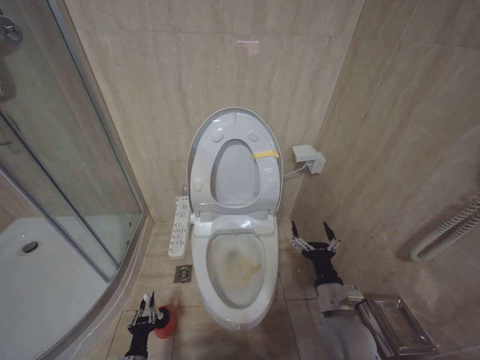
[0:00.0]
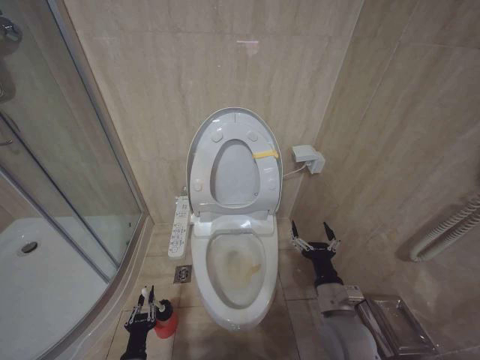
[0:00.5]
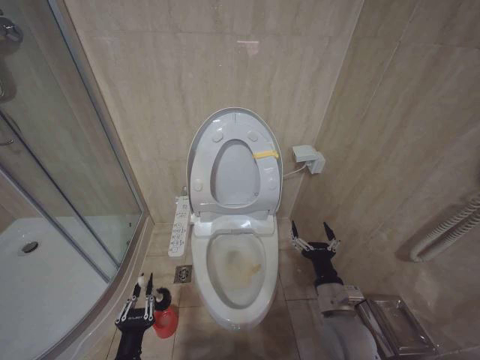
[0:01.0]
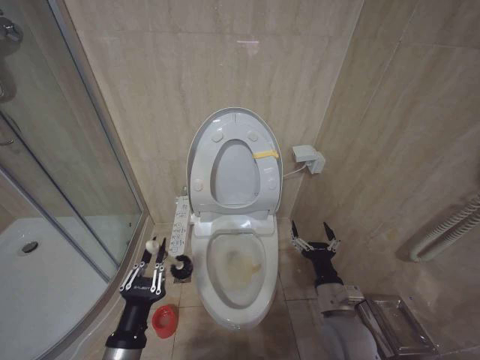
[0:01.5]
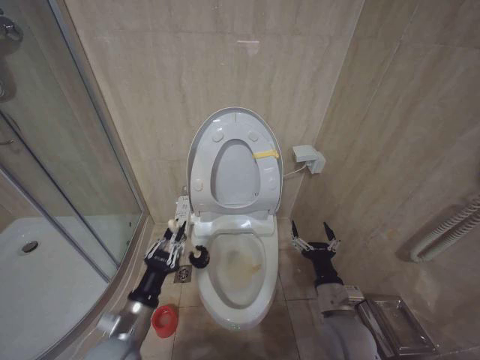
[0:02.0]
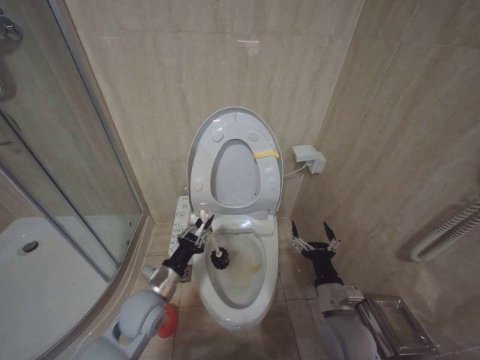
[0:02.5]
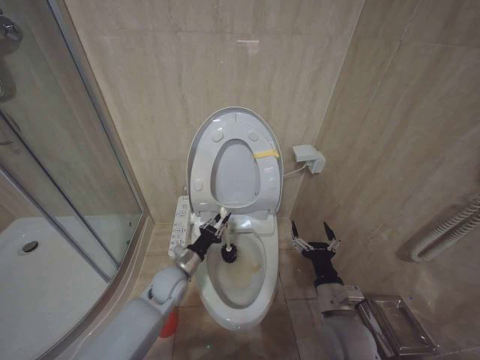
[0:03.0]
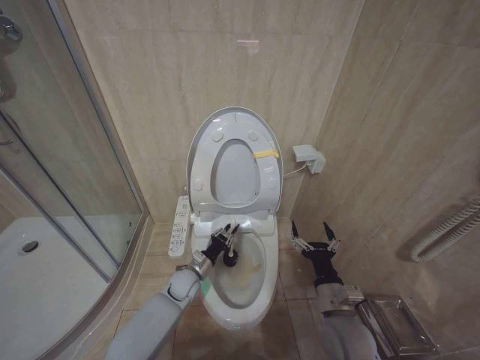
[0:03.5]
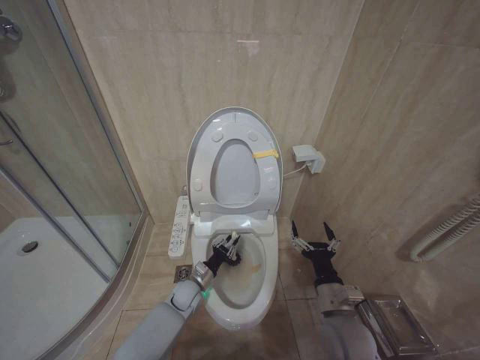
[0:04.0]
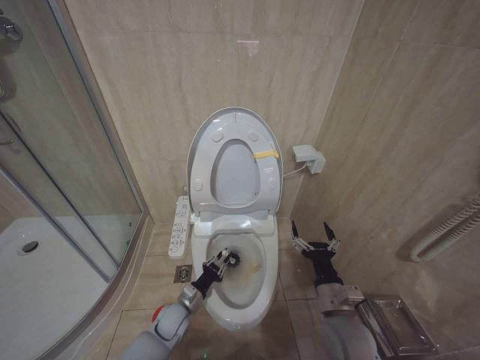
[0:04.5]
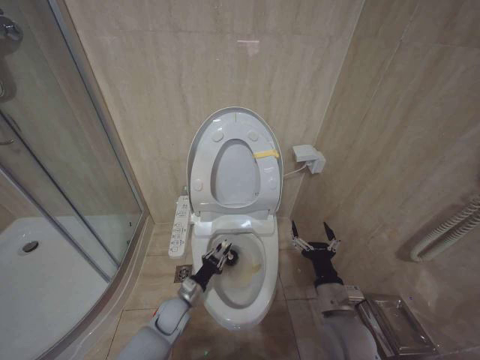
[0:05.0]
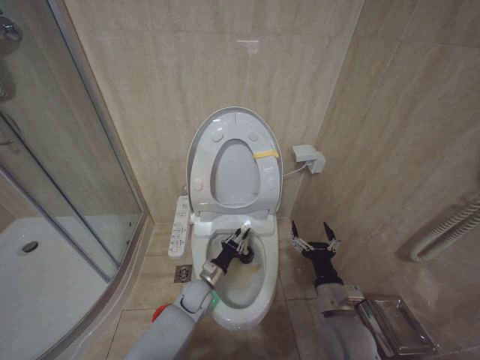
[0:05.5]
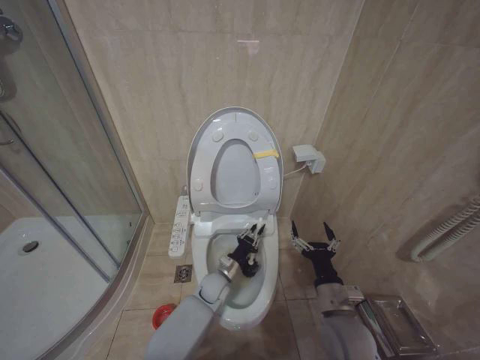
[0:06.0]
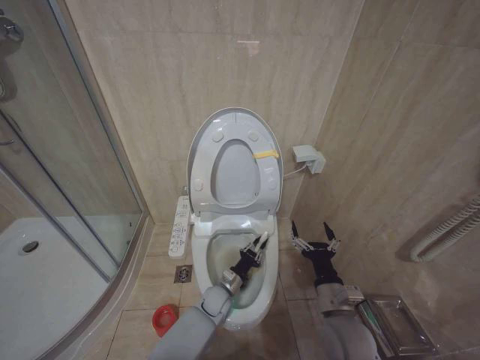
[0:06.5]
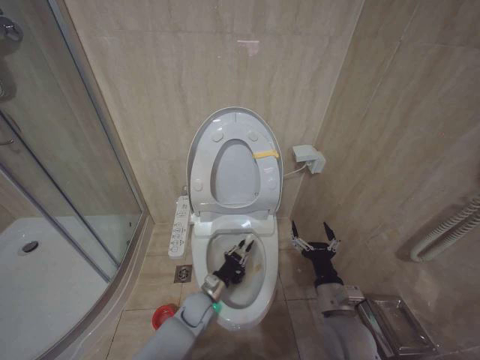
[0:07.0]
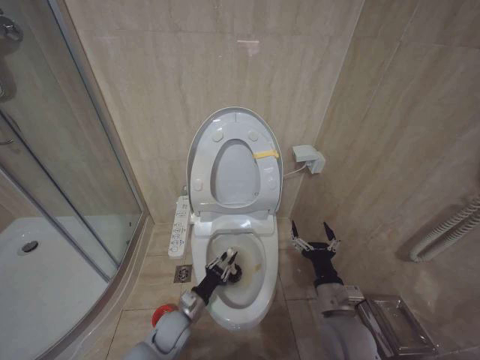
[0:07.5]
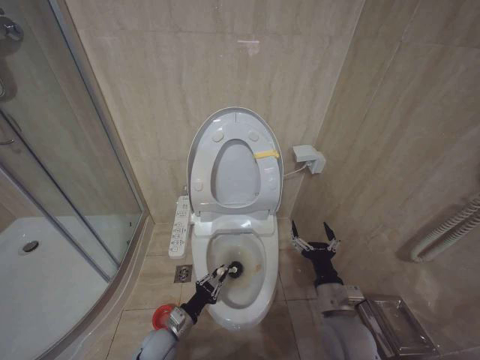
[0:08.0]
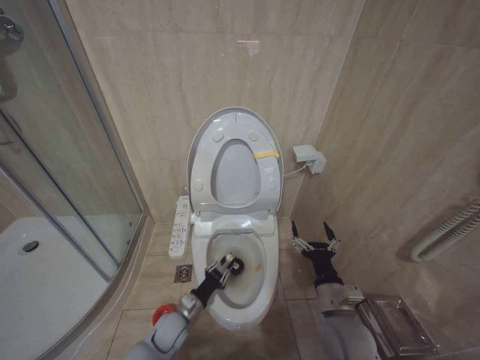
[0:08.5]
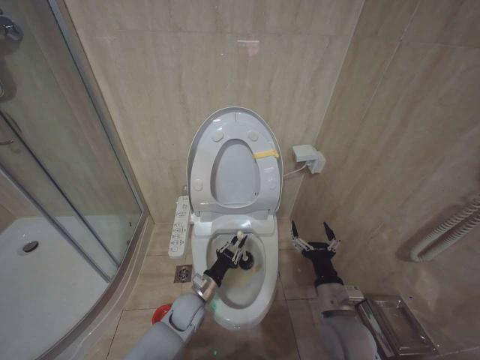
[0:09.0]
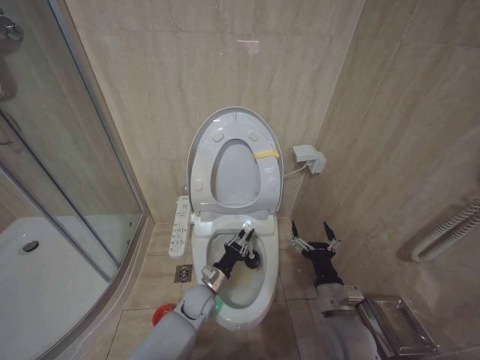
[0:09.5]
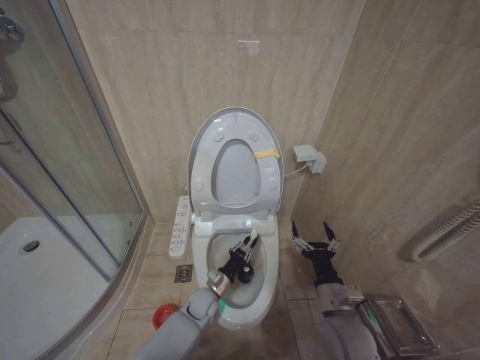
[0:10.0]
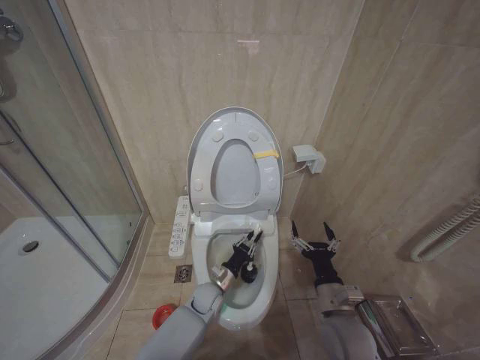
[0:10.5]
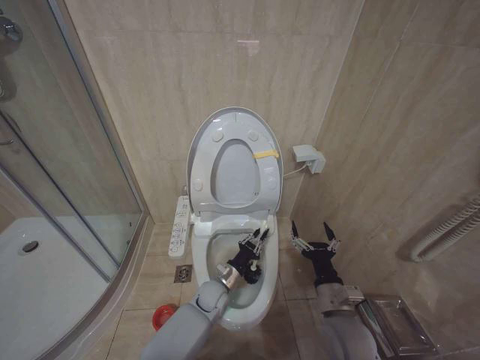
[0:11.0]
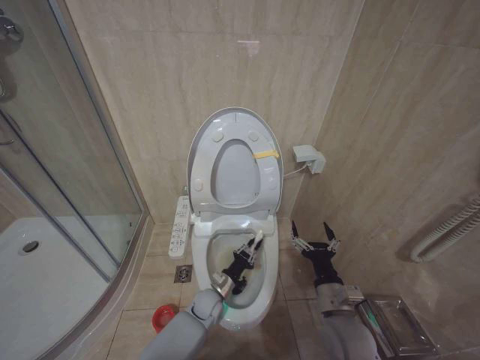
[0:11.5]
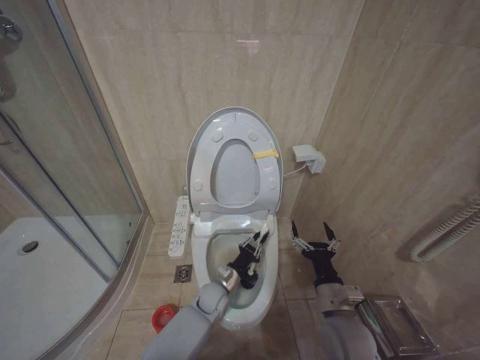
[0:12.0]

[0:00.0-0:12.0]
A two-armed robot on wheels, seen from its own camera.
Task of the whole recording: Open the toilet lid, clean the toilet bowl with a toilet brush, close the toilet lid, and flush.
0:00.0 to 0:02.0: The left gripper shifts approximately 30 cm upward.
0:02.0 to 0:04.0: The left gripper travels forward, downward and to the right by approximately 30 cm.
0:04.0 to 0:06.0: The left gripper moves to the right, approximately 10 cm.
0:06.0 to 0:08.0: The left gripper moves to the left and backward, roughly 20 cm.
0:08.0 to 0:10.0: The left gripper travels to the right and forward by about 15 cm.
0:10.0 to 0:12.0: The grippers move only a little.

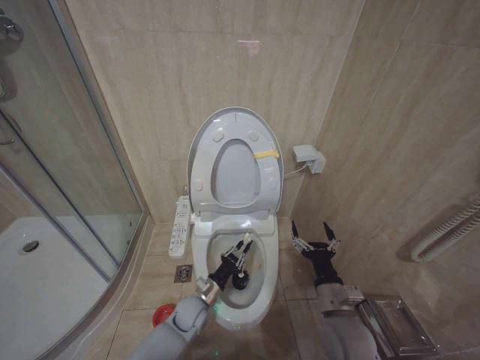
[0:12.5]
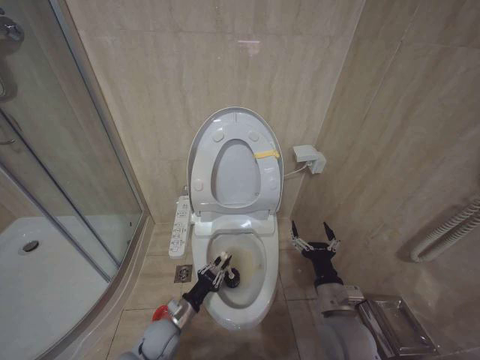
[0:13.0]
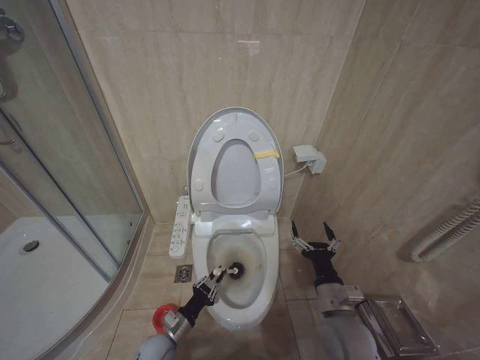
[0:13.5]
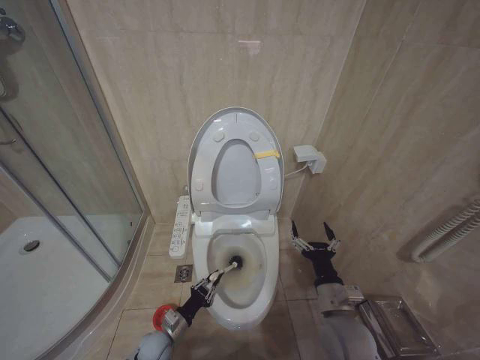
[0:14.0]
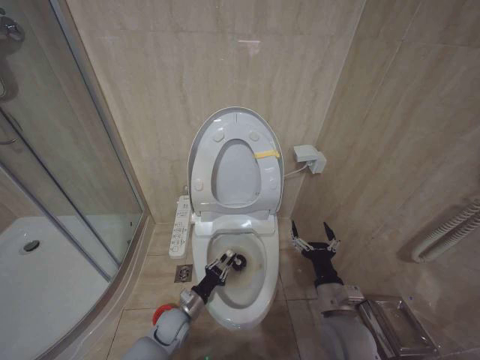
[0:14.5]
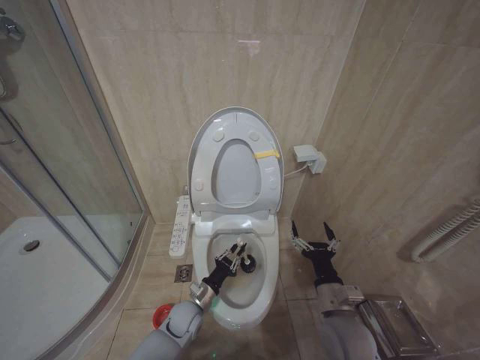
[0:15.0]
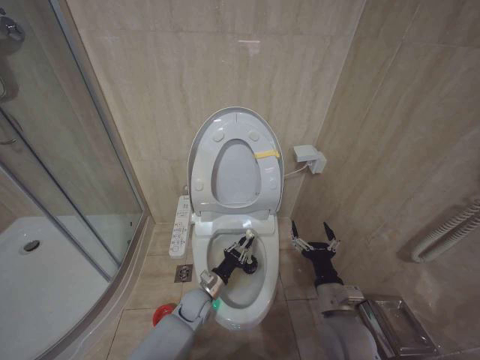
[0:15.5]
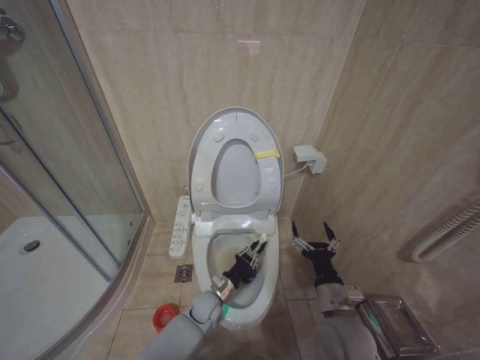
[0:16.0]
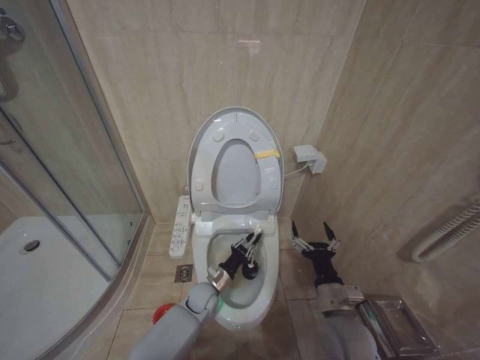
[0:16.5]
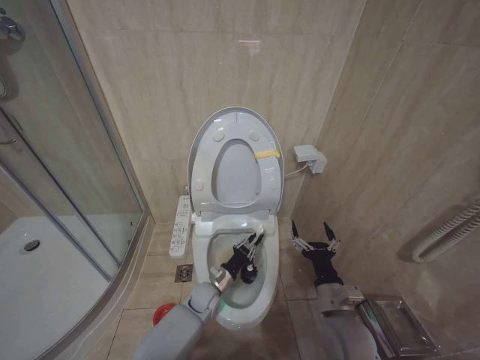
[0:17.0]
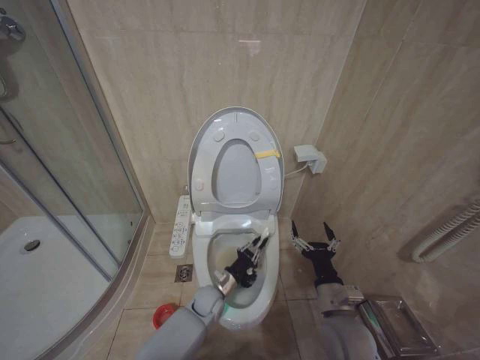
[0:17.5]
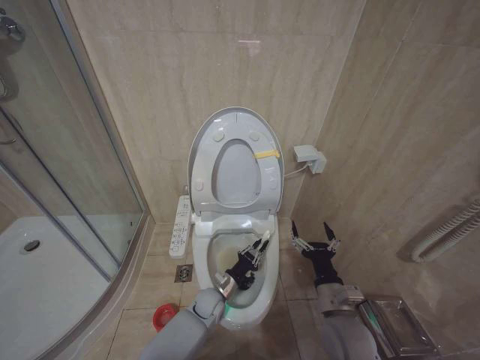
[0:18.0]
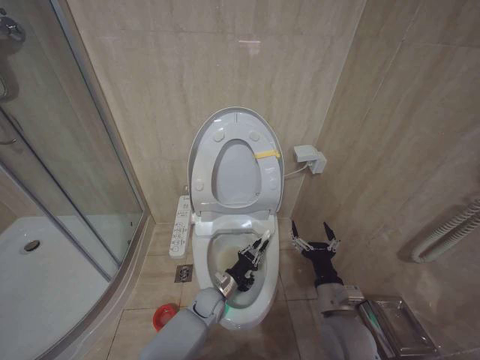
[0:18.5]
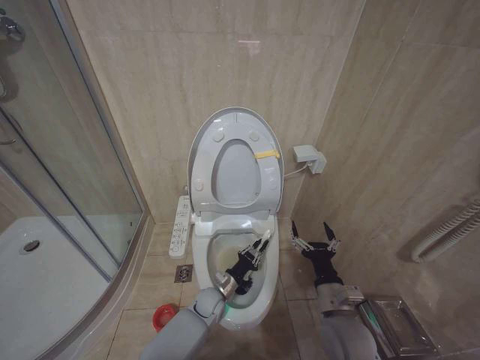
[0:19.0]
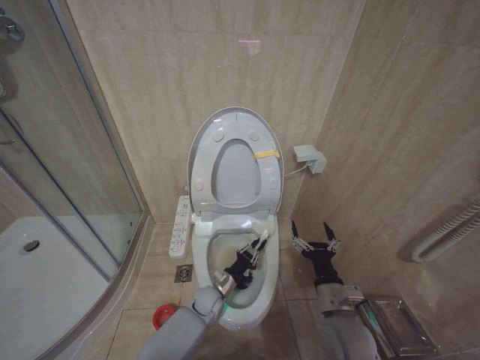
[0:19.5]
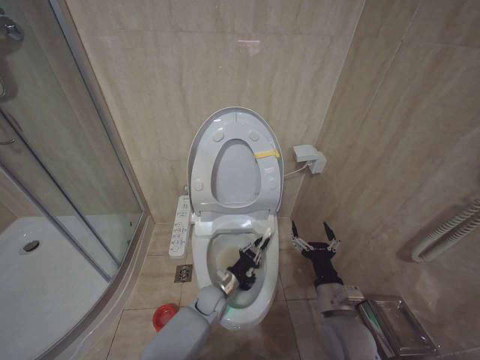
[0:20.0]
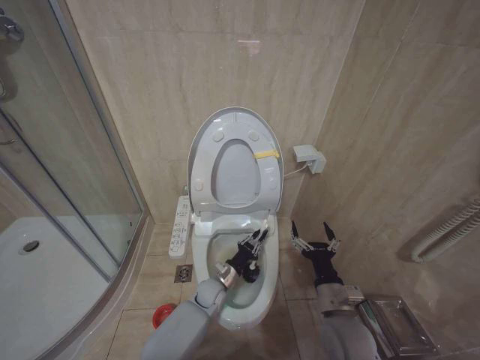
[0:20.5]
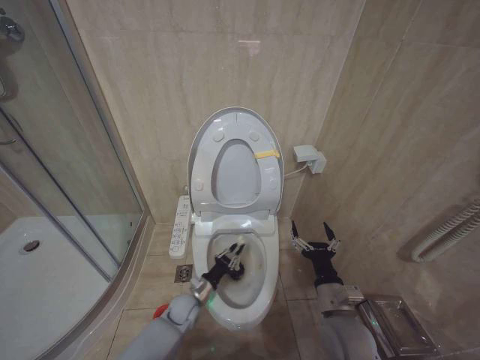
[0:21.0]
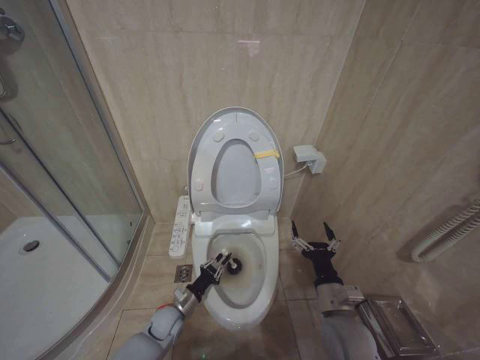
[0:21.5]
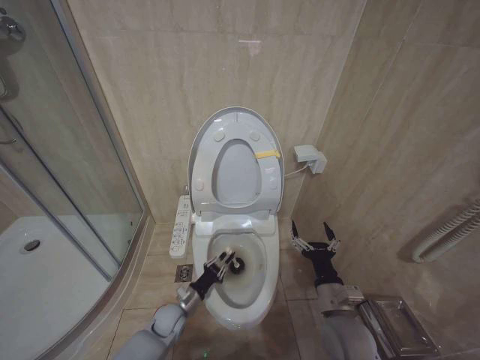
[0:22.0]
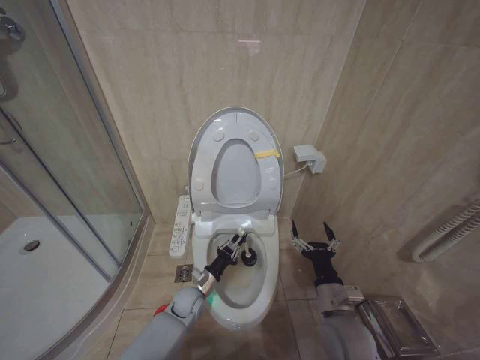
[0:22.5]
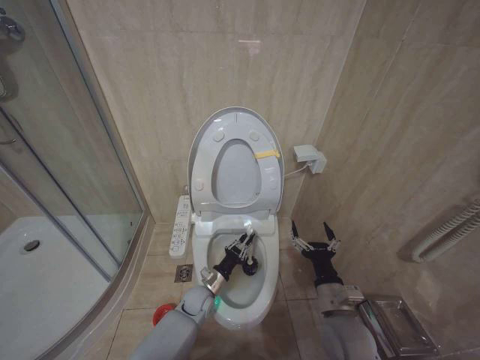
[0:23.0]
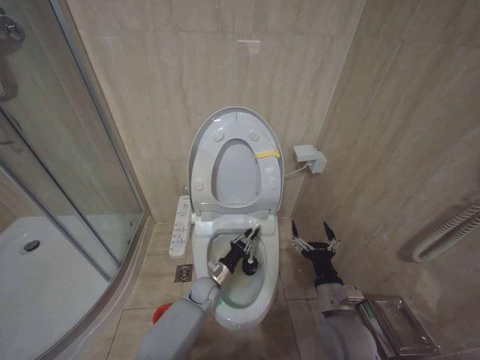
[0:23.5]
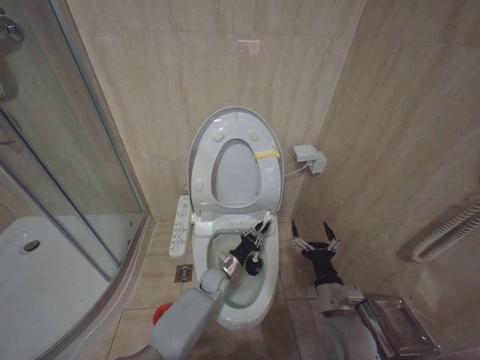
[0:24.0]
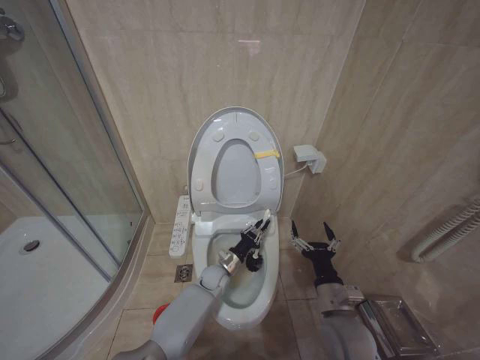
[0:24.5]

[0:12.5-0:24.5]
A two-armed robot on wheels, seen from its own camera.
Task of the whole recording: Open the toilet lid, clean the toilet bowl with a toilet brush, close the toilet lid, and flush.
0:12.5 to 0:14.5: The left gripper heads to the left, covering approximately 5 cm.
0:14.5 to 0:16.5: The left gripper shifts some 10 cm to the right and forward.
0:16.5 to 0:20.5: The grippers move only a little.
0:20.5 to 0:22.5: The left gripper heads to the left, covering roughly 10 cm.
0:22.5 to 0:24.5: The left gripper goes some 10 cm to the right and forward.

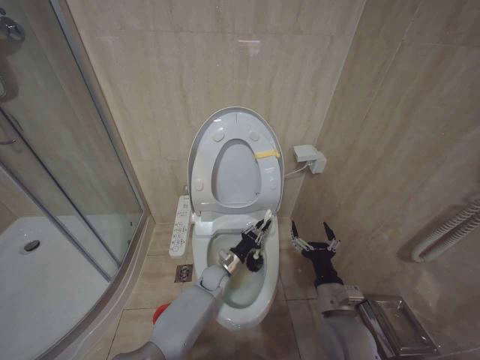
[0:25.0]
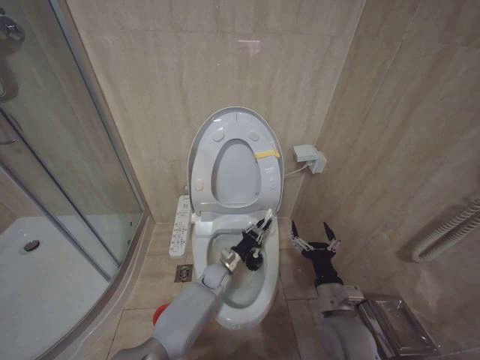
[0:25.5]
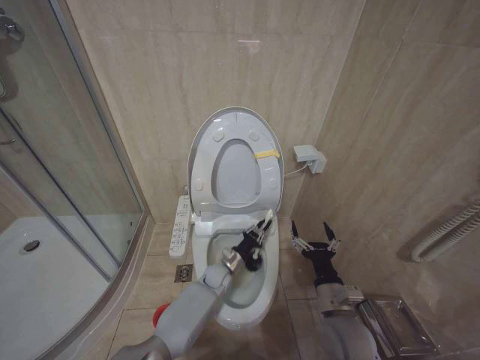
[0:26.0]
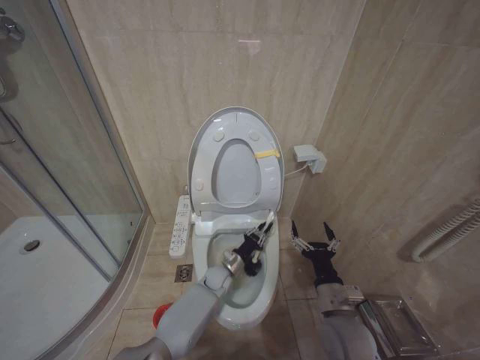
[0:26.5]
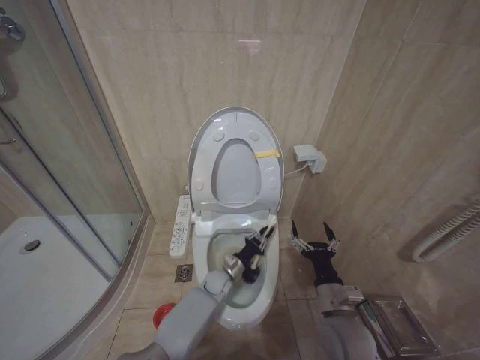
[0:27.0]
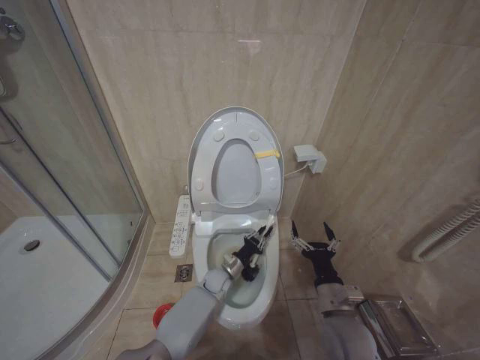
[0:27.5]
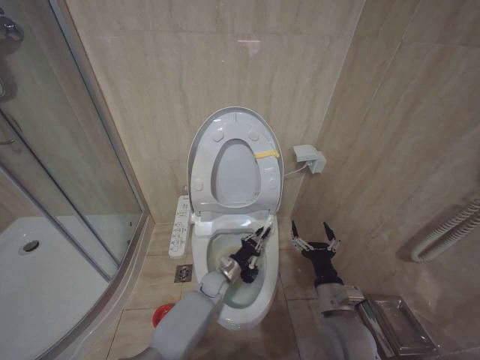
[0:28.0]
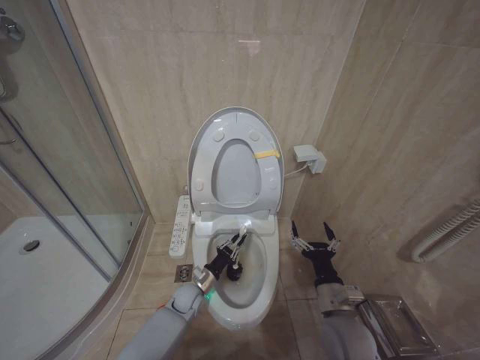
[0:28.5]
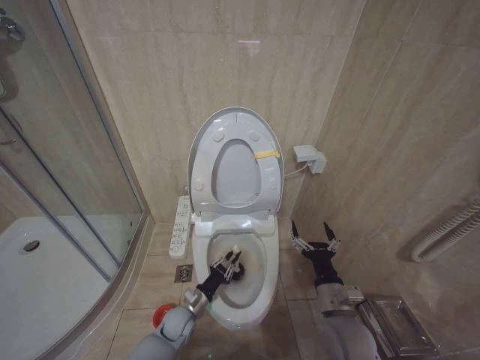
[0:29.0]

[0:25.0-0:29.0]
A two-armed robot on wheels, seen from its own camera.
Task of the whole recording: Open the toilet lid, clean the toilet bowl with a toilet brush, close the toilet lid, and flush.
0:25.0 to 0:27.0: The grippers move only a little.
0:27.0 to 0:29.0: The left gripper shifts roughly 15 cm to the left and backward.
